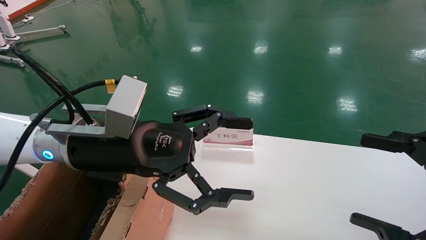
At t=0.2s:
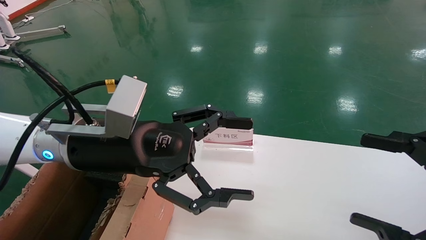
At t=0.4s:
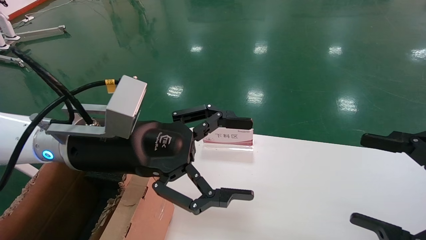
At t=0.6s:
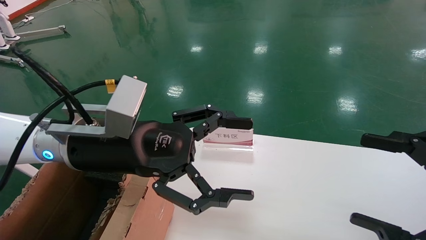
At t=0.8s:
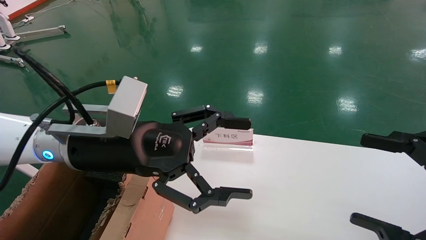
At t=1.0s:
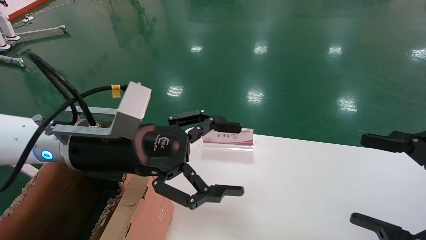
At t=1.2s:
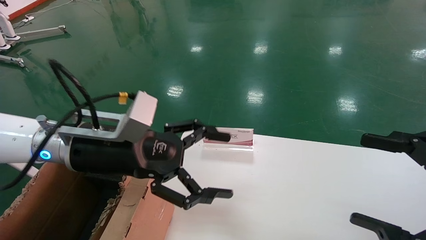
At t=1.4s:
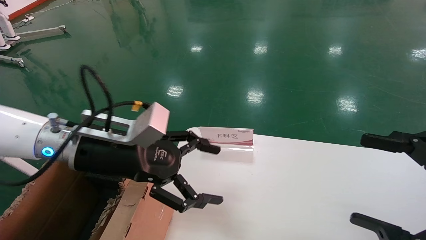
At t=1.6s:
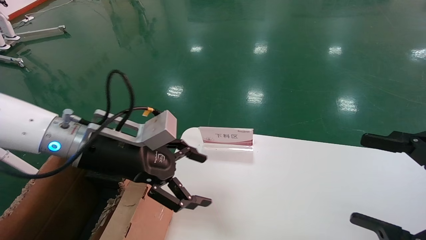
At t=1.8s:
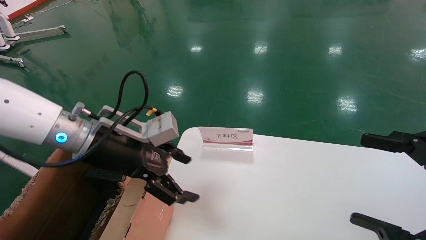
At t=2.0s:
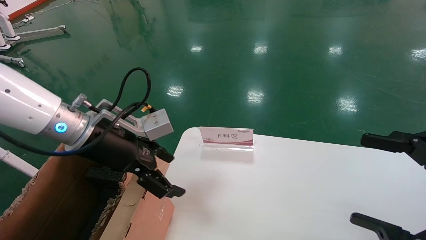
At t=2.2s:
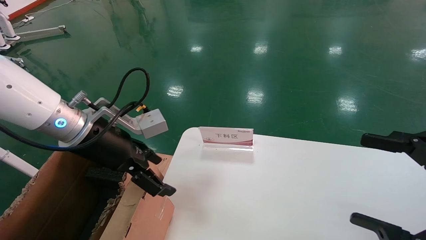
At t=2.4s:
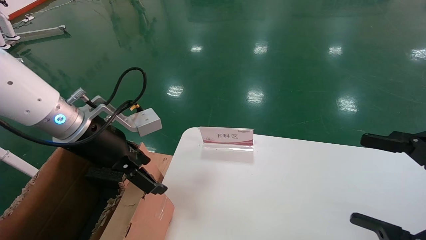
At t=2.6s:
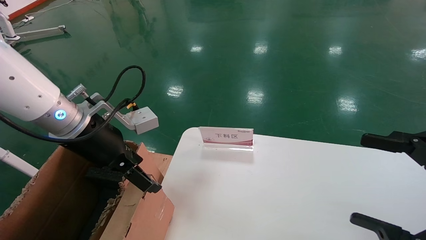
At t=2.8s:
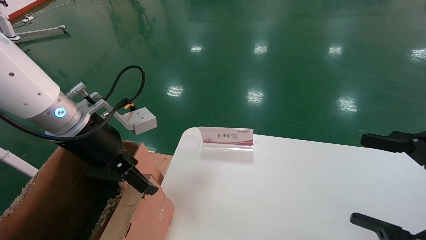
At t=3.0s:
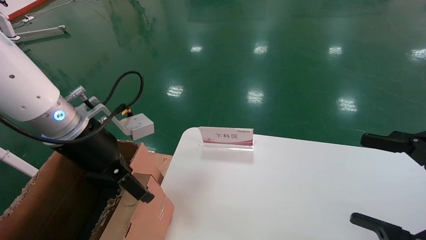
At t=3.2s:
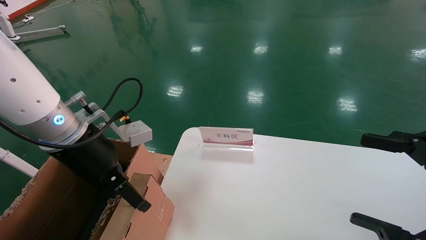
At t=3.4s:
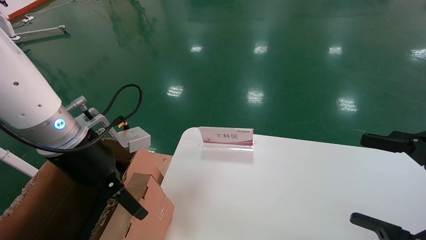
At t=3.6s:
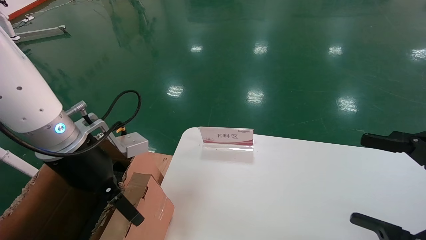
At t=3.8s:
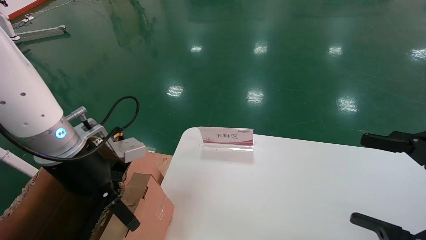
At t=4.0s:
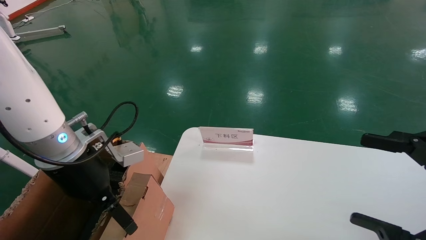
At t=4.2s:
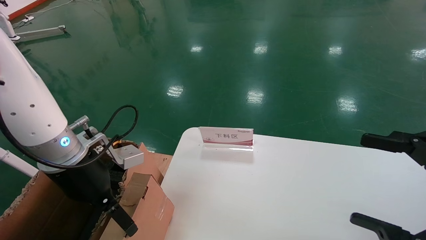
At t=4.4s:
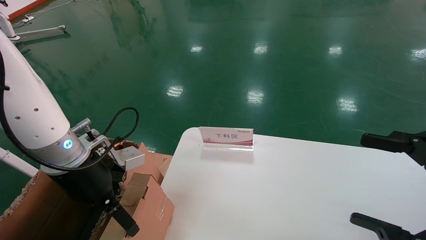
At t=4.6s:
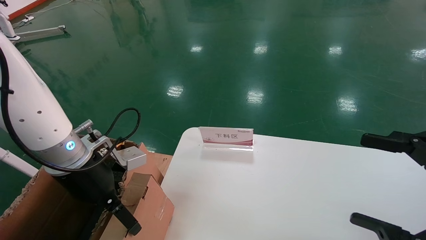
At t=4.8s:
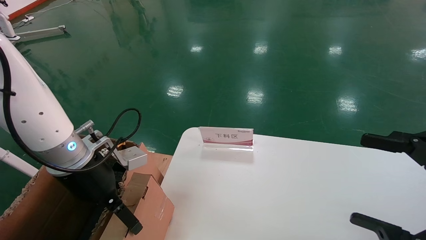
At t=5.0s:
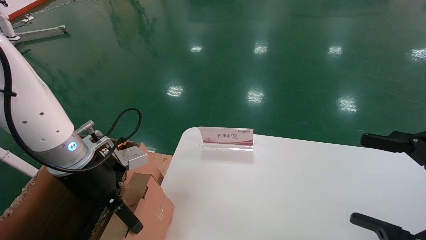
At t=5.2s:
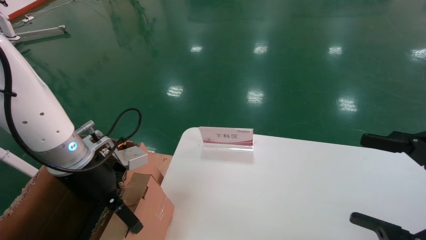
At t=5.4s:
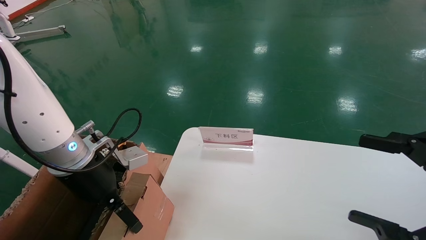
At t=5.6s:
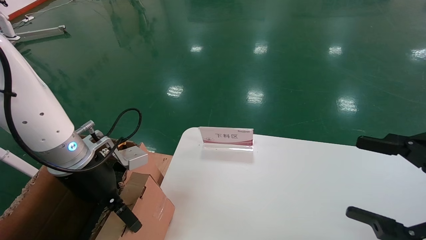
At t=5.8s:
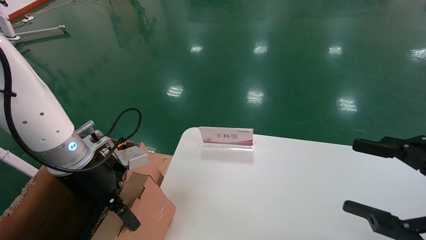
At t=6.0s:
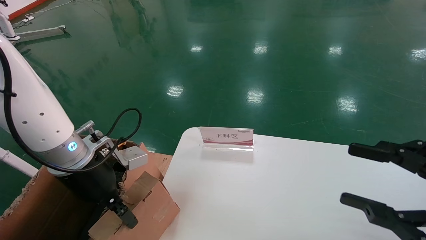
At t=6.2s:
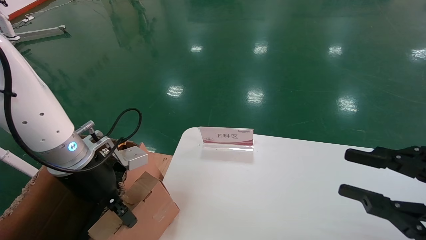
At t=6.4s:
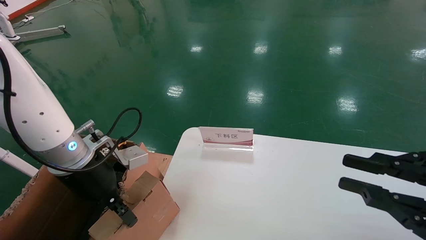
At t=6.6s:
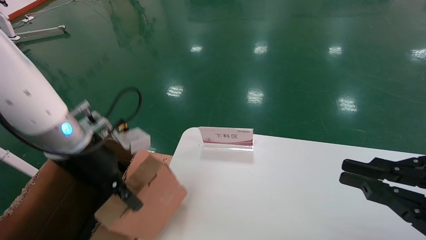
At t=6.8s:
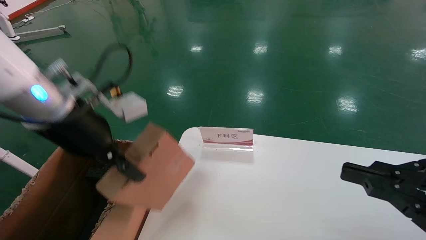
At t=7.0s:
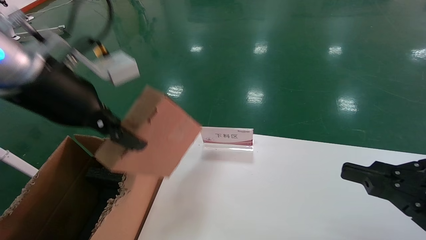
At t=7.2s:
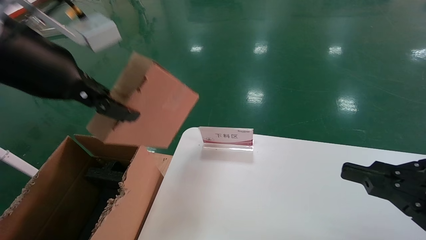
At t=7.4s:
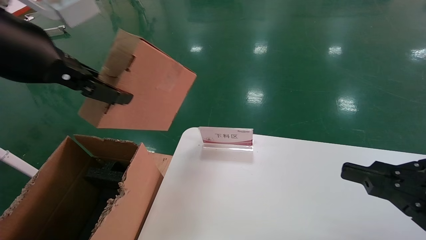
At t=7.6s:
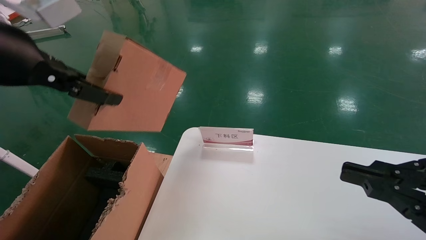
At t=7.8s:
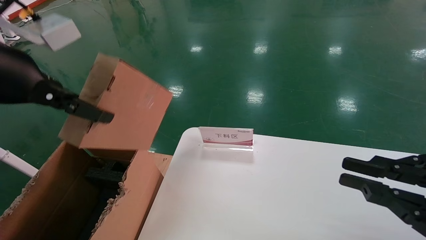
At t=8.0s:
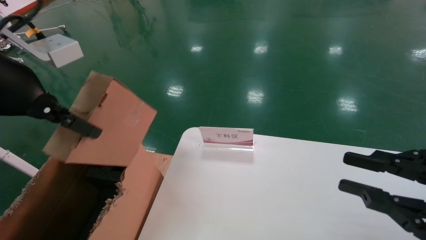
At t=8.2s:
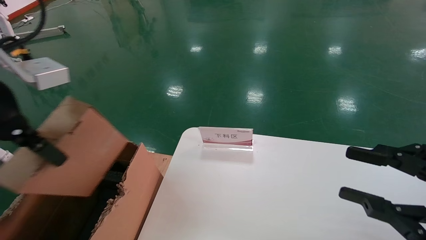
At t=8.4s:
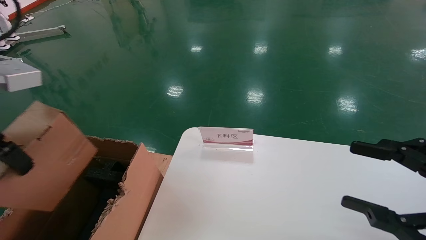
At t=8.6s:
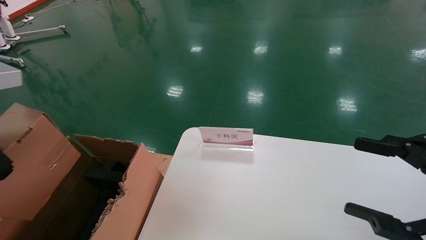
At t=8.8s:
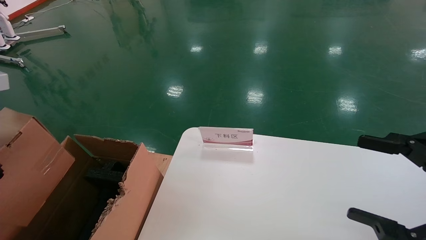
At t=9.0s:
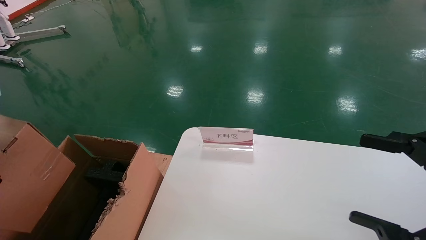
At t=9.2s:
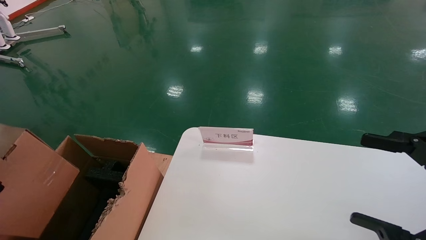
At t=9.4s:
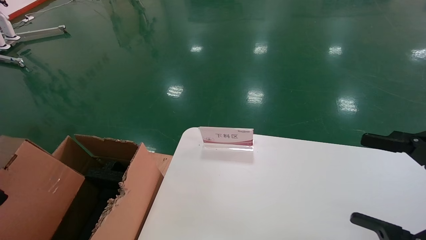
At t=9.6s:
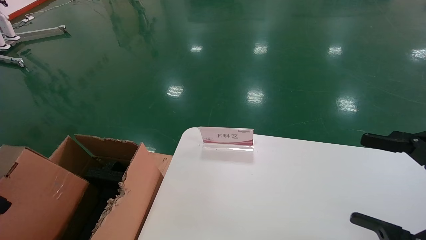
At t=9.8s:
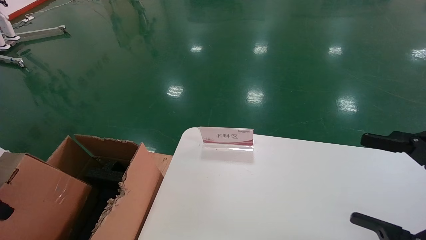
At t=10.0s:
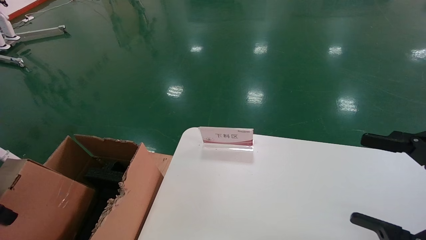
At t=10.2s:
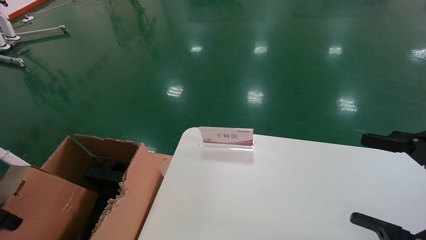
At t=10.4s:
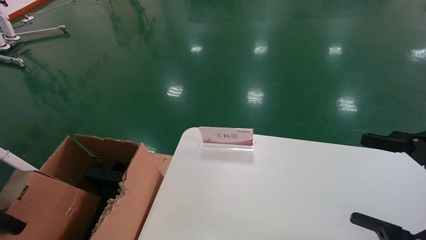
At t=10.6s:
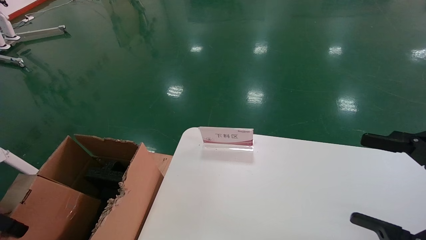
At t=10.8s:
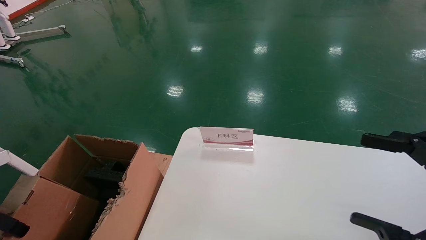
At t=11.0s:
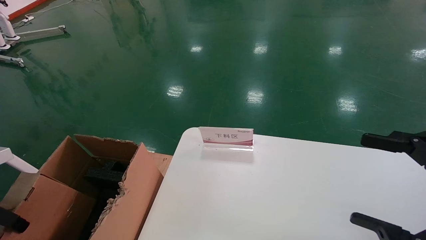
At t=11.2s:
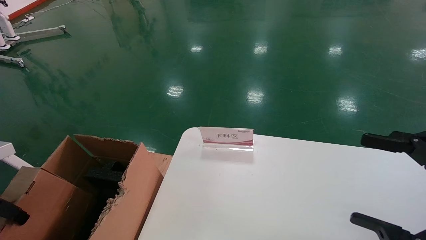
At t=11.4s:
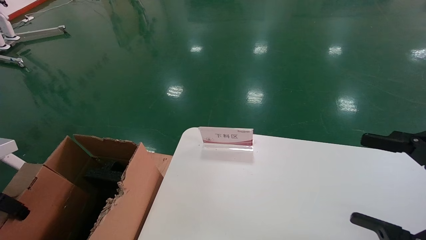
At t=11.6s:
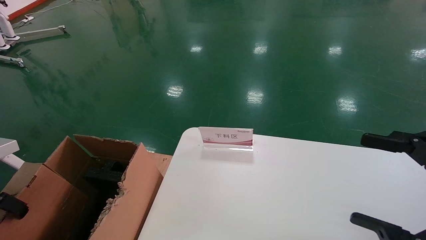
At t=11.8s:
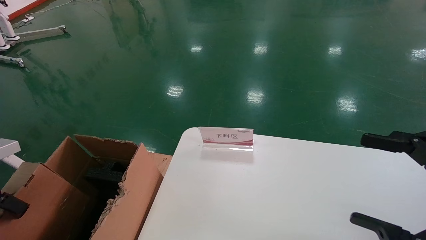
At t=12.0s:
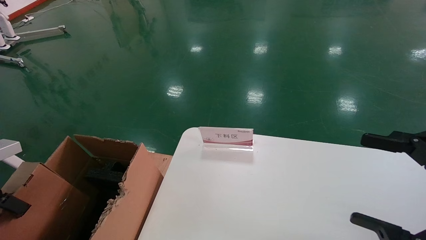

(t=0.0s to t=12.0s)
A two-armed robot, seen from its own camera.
Task of the whole recording: pick up the small cardboard box and load it into the large cardboard box.
Step, t=1.2s - t=8.0s: Pick up the mouse and power cord box.
t=3.0s - t=4.4s: The left gripper ends up some 5 cm from where it was.
t=4.4s - t=6.0s: The left gripper closes.
t=6.0s - t=7.6s: The right gripper closes up. The left gripper heads upward and backward, covering some 20 cm, and closes its fingers.
t=7.6s - t=9.0s: The right gripper opens; the left gripper is displaced to the left by approximately 10 cm.
t=9.0s - t=10.4s: The left gripper moves downward and to the left, some 15 cm.
t=10.4s - t=12.0s: The left gripper shifts roughly 5 cm forward.

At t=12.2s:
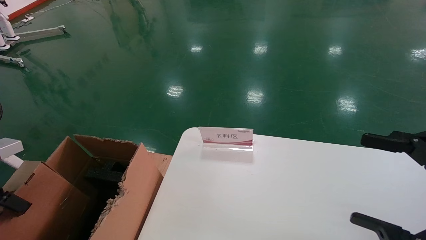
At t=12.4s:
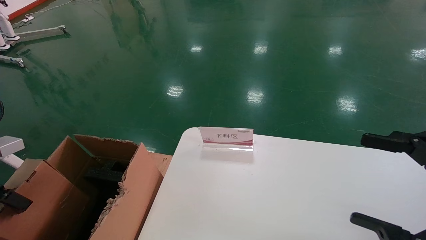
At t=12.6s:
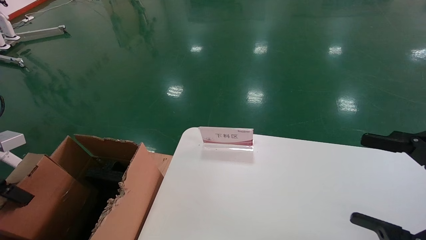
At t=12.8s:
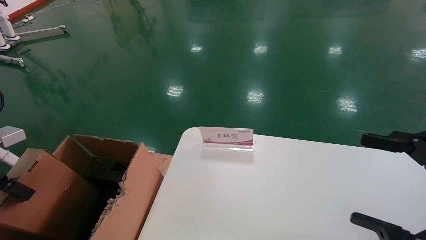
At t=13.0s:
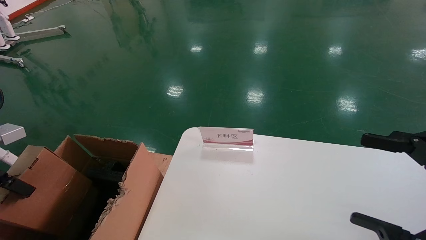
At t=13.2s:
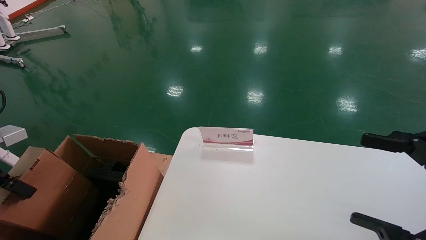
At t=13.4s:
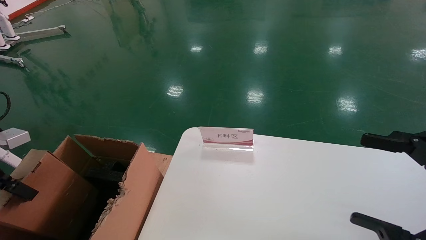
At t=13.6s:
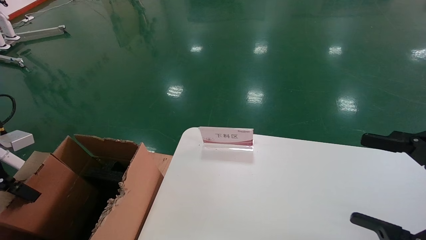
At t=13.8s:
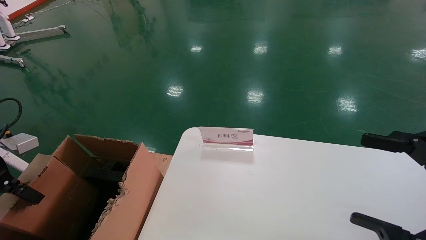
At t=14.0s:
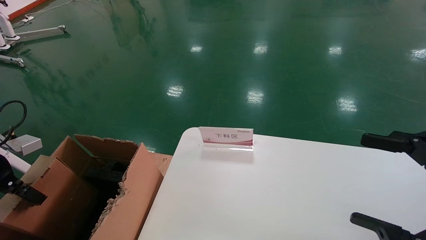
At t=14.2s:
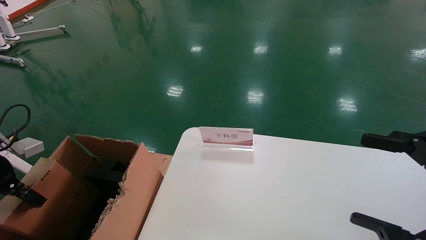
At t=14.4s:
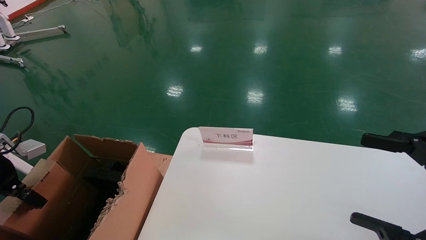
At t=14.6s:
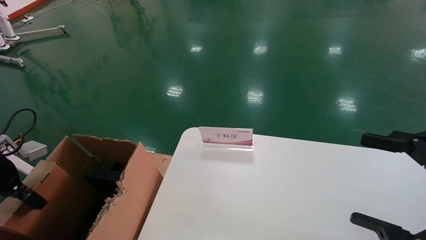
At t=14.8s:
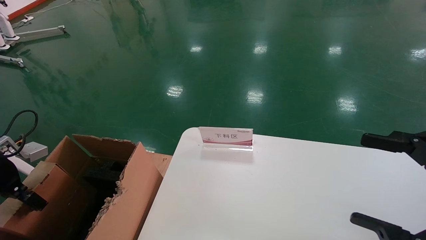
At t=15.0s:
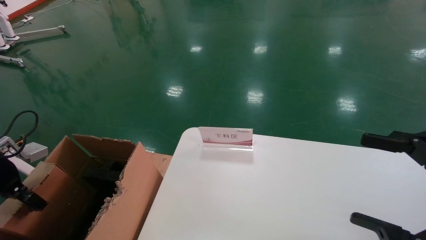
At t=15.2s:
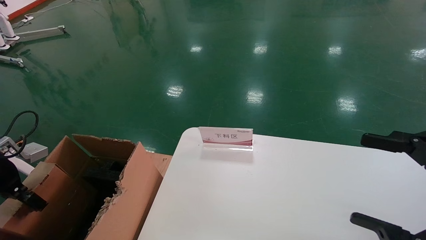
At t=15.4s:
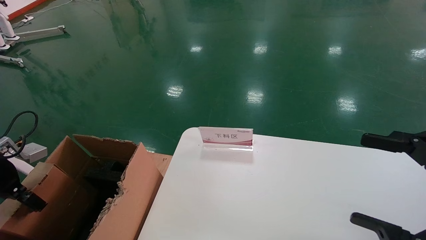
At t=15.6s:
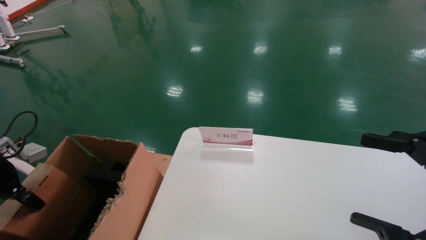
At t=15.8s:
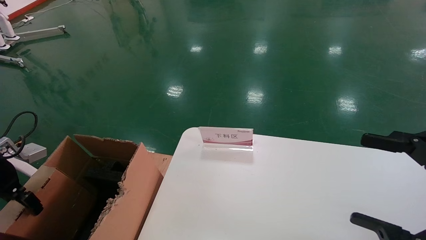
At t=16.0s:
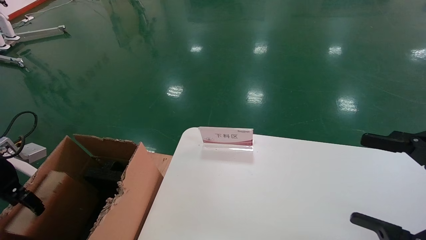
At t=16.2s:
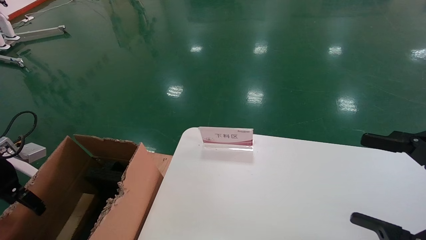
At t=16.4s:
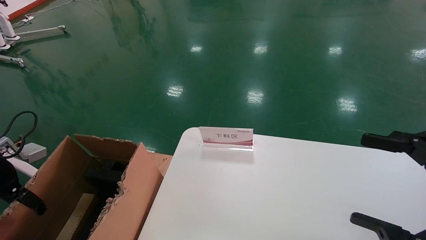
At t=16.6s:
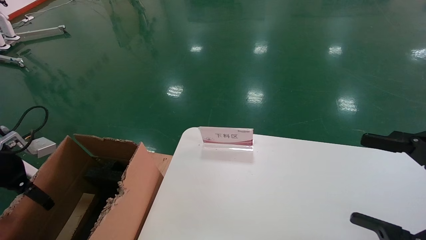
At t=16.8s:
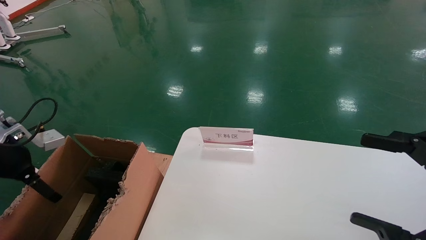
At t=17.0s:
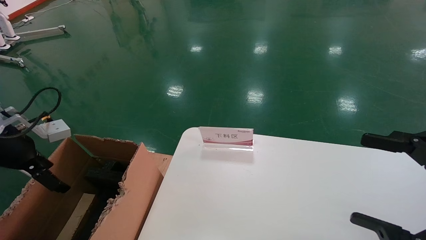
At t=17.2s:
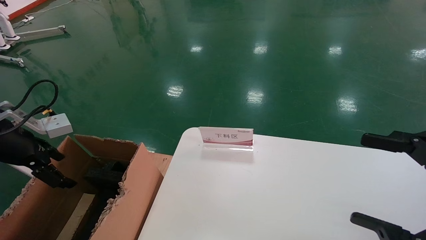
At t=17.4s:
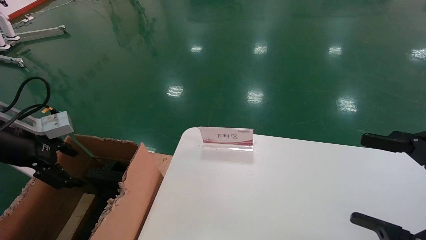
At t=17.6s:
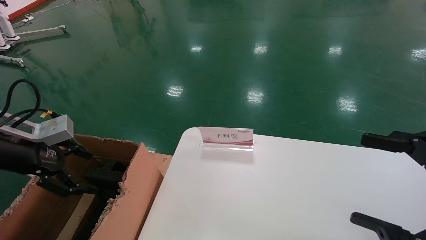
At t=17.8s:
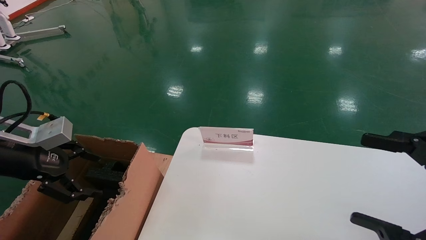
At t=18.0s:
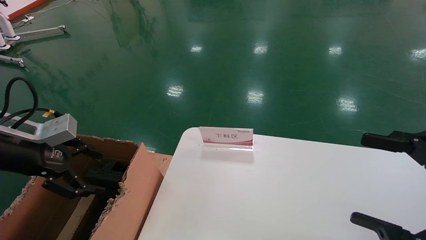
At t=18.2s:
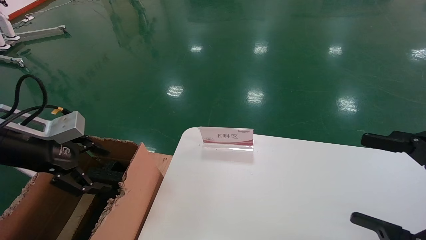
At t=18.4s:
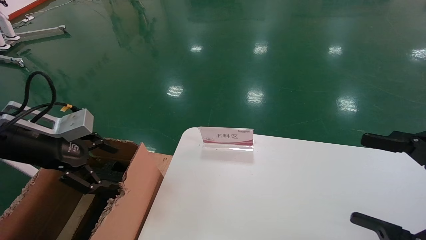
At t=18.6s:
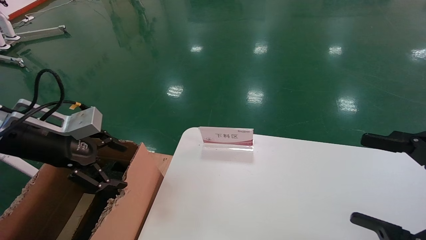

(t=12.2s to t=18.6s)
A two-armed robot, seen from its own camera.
Task of the whole recording: pick up the small cardboard box and load it into the large cardboard box.
Step, t=12.2s - t=17.0s: Place the mouse and power cord box into the case.
t=12.2s - t=13.8s: The grippers move only a little.
t=13.8s - t=15.4s: The grippers stay close to where they were, moving slightly.
t=15.4s - t=17.0s: The left gripper is displaced upward by approximately 5 cm, and opens.
t=17.0s - t=18.6s: The left gripper heads to the right, covering roughly 10 cm.
